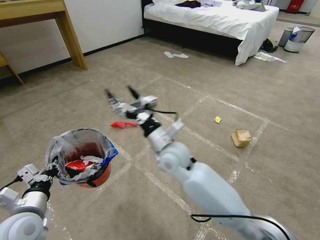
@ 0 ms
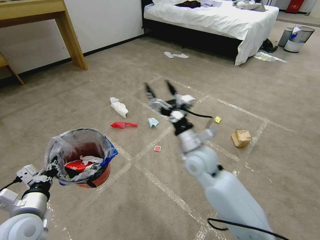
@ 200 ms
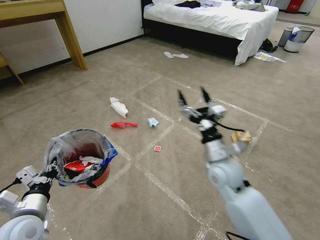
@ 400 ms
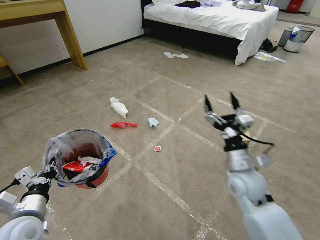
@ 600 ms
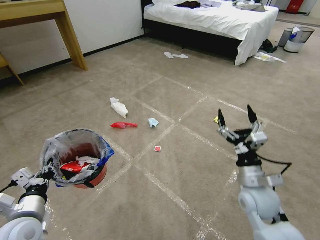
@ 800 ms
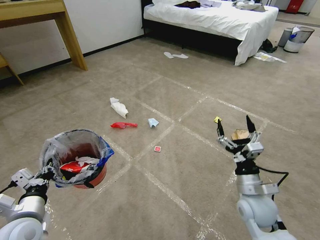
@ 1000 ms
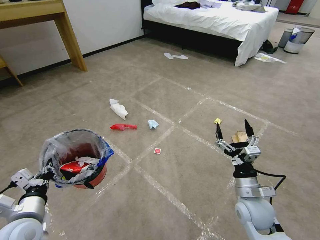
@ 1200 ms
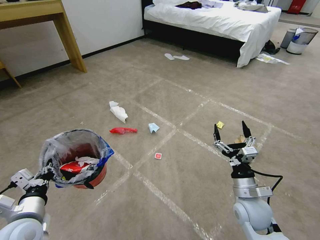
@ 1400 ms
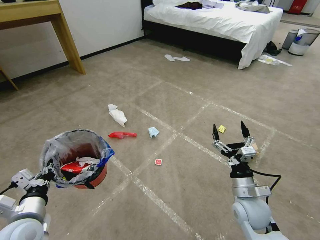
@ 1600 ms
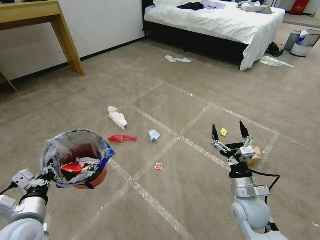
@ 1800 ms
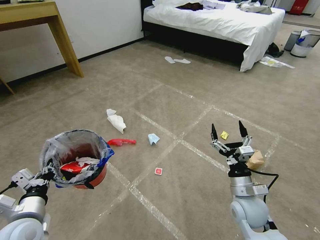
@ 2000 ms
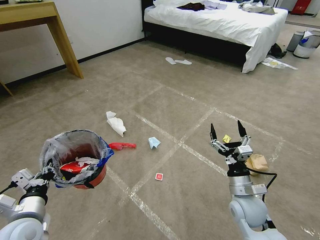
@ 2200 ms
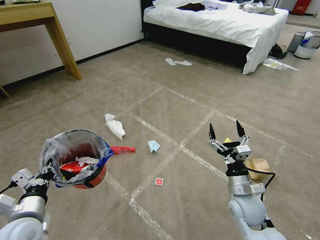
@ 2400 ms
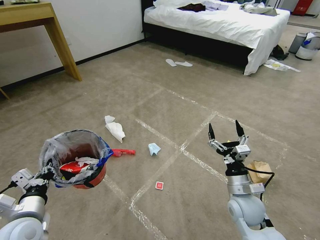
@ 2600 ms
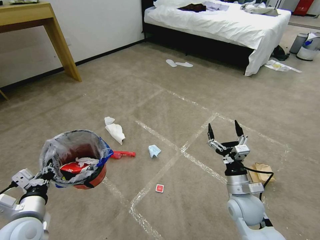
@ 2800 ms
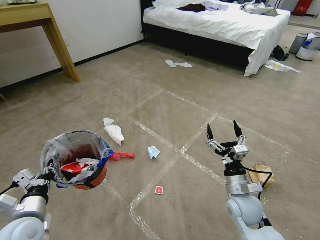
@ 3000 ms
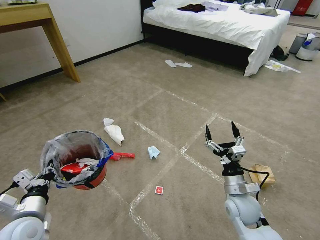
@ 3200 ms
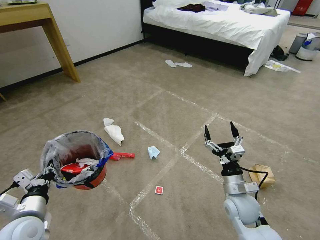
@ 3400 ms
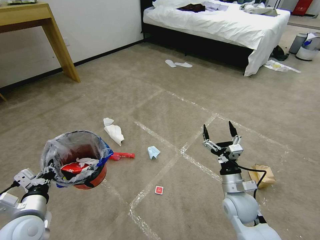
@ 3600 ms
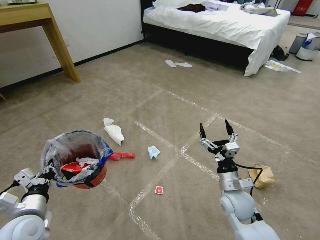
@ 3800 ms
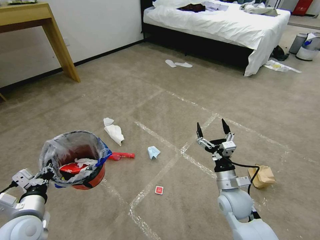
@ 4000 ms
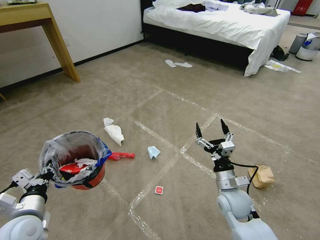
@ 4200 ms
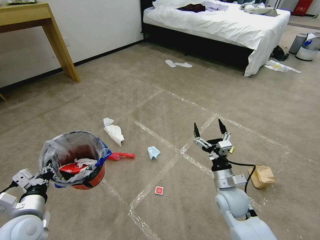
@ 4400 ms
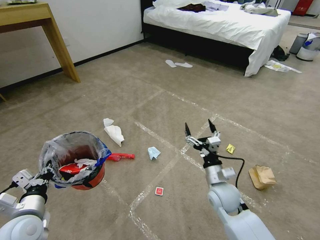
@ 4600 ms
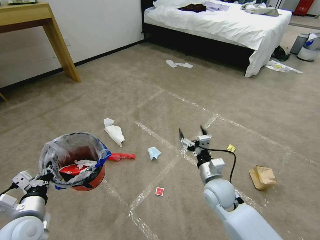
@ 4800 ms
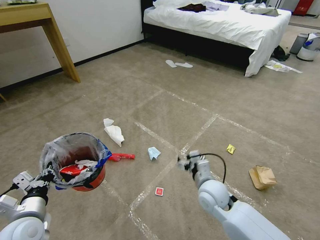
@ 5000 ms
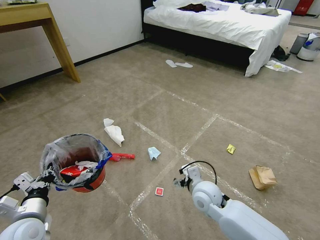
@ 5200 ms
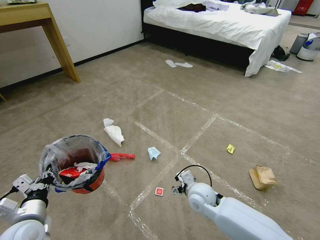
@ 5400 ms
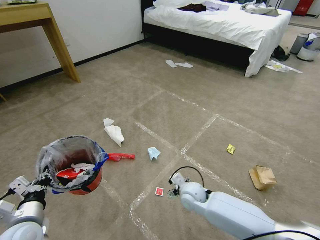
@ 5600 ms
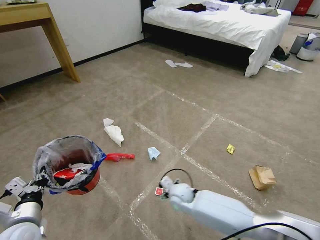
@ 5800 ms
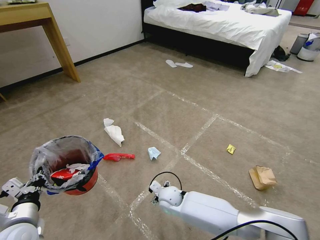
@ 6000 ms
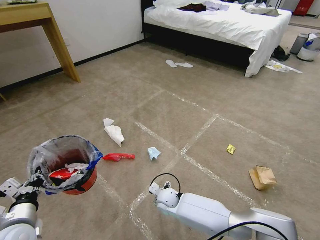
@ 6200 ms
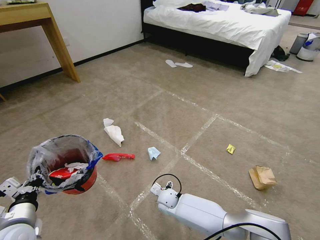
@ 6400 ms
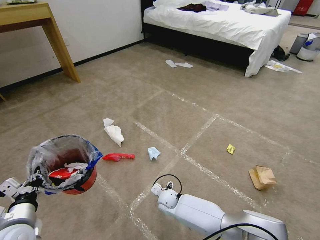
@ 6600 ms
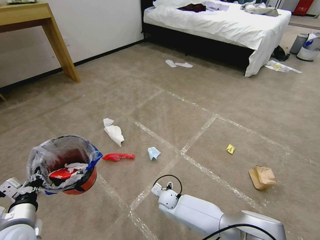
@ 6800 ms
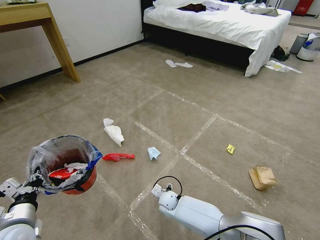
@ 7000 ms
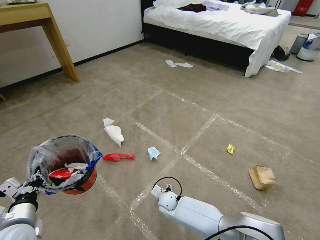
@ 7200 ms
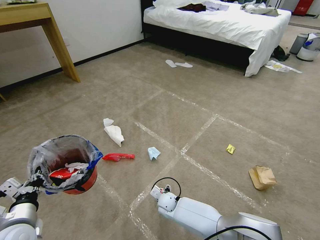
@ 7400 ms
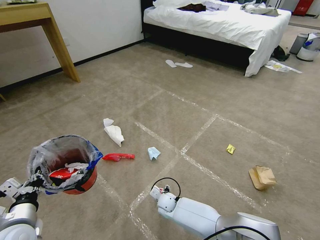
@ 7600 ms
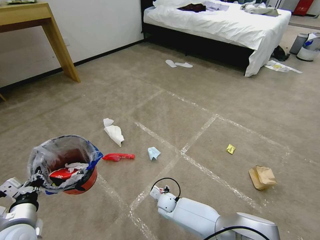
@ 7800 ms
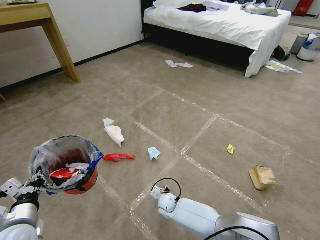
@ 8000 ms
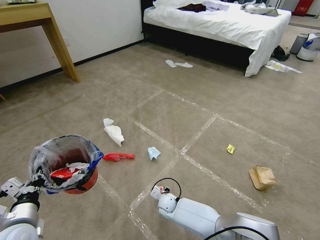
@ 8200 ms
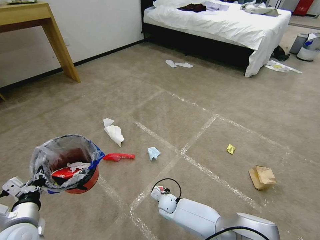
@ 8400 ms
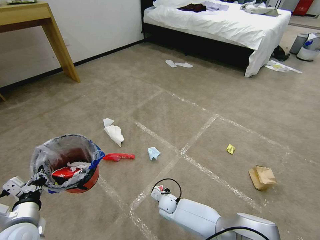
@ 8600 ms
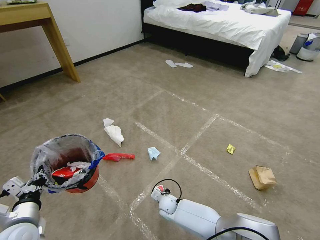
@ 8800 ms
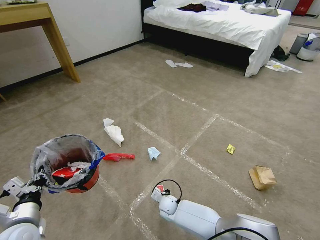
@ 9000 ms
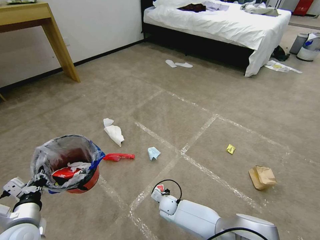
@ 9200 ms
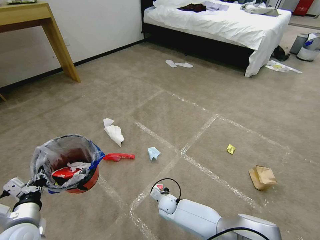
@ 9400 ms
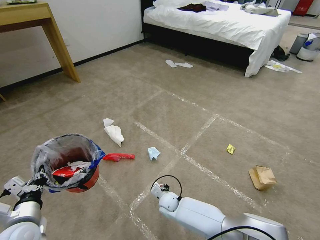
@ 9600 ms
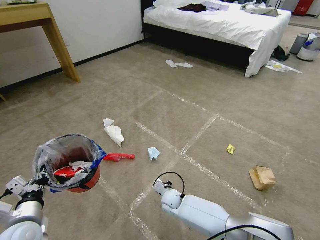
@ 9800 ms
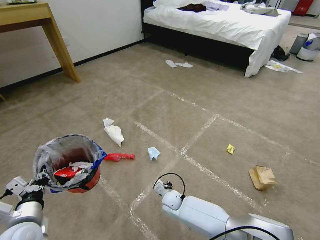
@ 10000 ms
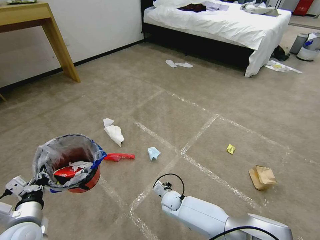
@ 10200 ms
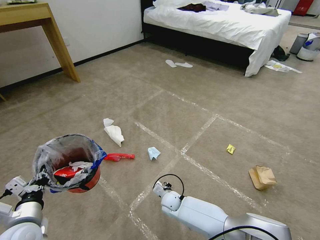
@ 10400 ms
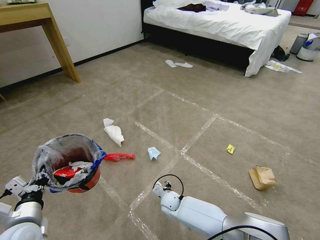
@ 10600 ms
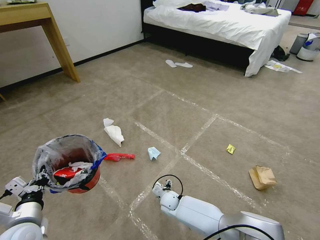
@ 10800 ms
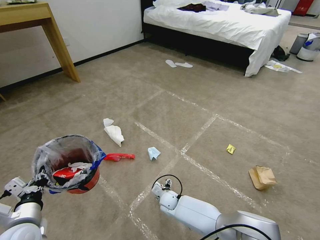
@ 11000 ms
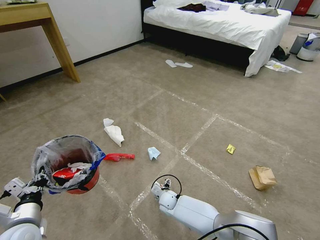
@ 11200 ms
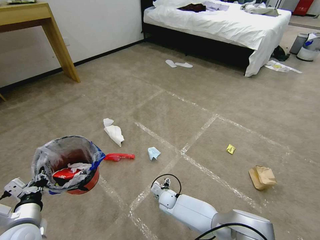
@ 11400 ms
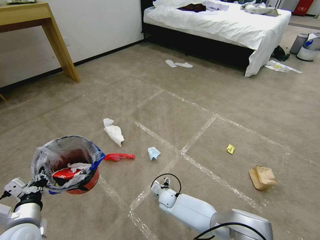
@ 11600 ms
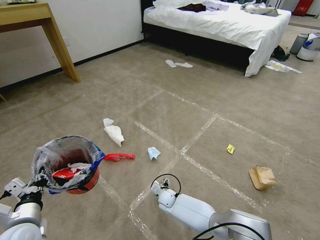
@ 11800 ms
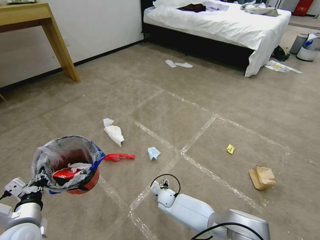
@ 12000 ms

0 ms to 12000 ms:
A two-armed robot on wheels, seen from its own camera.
Task of the whole recording: Pick up the trash bin and place the garbage on the floor into it.
0 ms to 1600 ms: The right gripper heads to the right, backward and downward, covering roughly 30 cm.
3000 ms to 4400 ms: The grippers stay close to where they were, moving slightly.
4400 ms to 6000 ms: The right gripper moves to the left and downward, roughly 20 cm.
6000 ms to 7600 ms: The right gripper heads downward, covering some 10 cm.
7600 ms to 9000 ms: The right gripper closes its fingers.
9000 ms to 10400 ms: The right gripper opens up.
10400 ms to 12000 ms: The right gripper opens up.

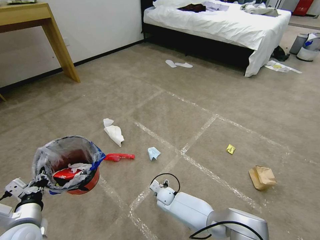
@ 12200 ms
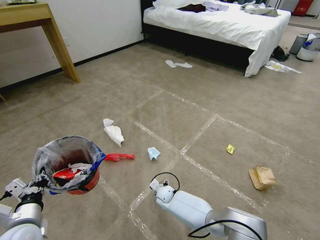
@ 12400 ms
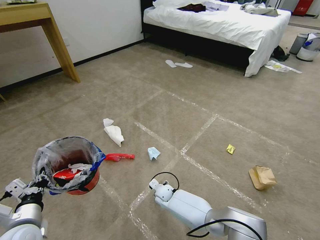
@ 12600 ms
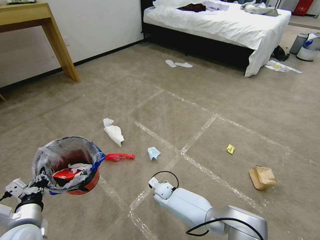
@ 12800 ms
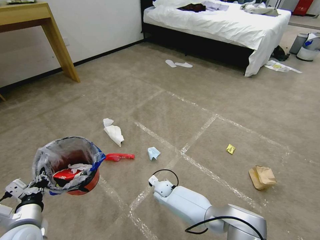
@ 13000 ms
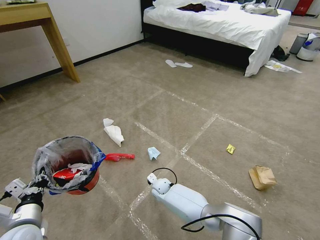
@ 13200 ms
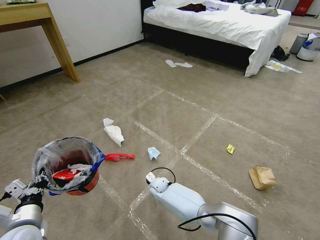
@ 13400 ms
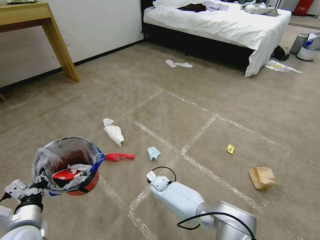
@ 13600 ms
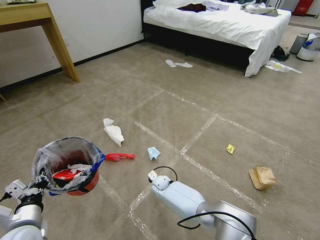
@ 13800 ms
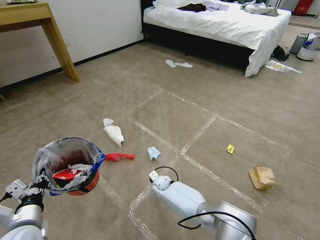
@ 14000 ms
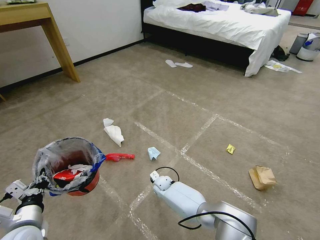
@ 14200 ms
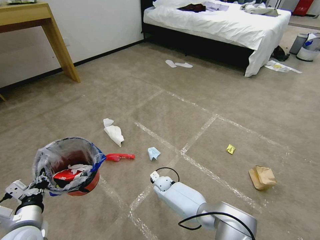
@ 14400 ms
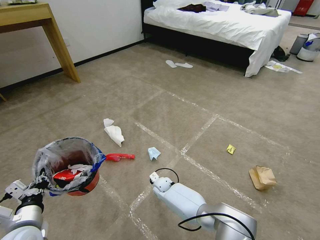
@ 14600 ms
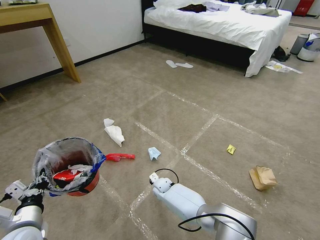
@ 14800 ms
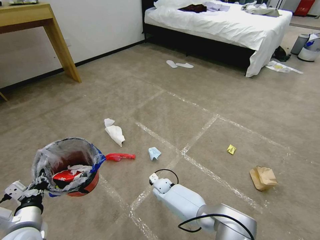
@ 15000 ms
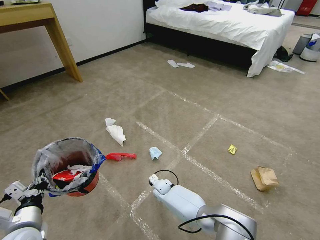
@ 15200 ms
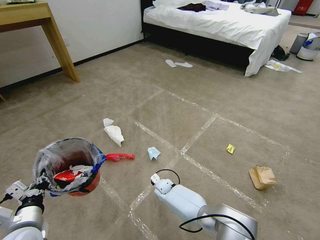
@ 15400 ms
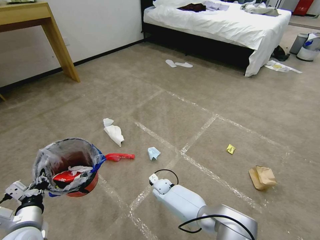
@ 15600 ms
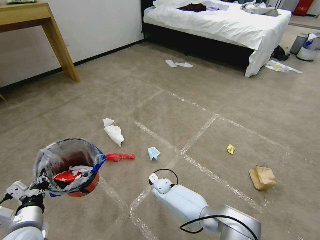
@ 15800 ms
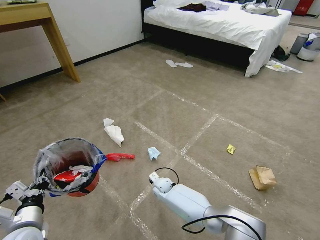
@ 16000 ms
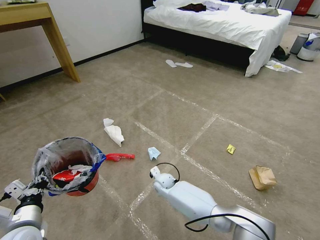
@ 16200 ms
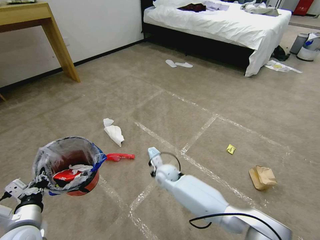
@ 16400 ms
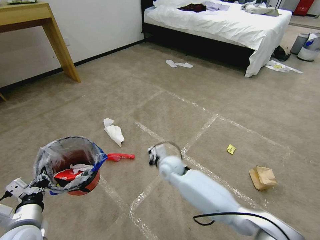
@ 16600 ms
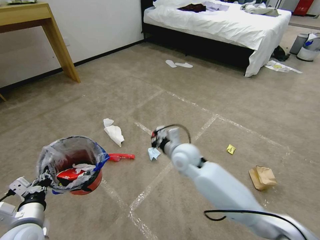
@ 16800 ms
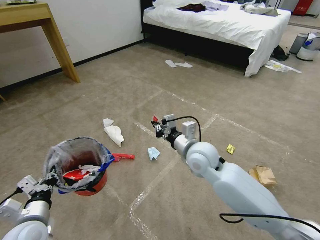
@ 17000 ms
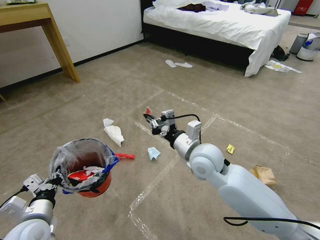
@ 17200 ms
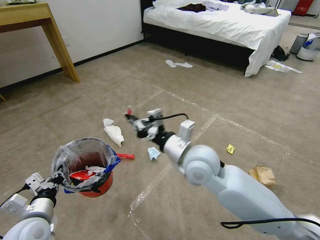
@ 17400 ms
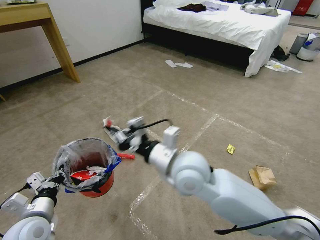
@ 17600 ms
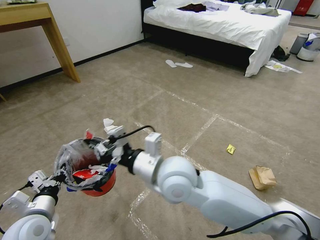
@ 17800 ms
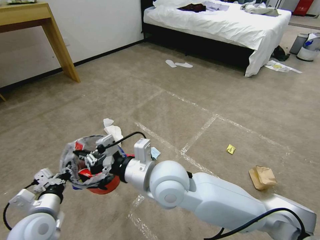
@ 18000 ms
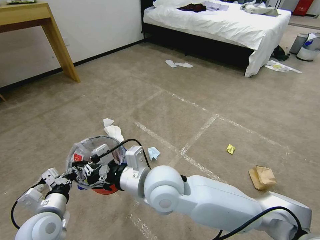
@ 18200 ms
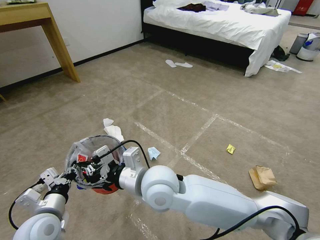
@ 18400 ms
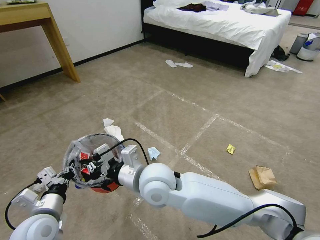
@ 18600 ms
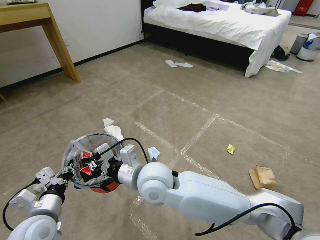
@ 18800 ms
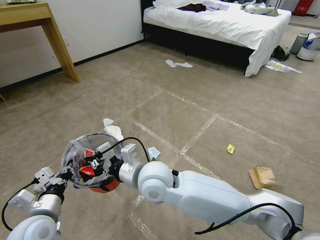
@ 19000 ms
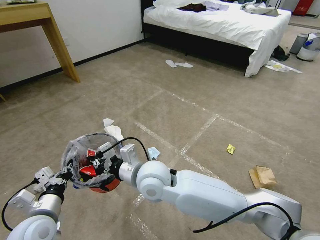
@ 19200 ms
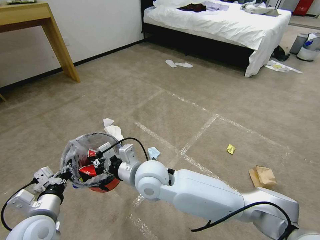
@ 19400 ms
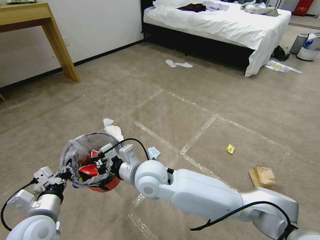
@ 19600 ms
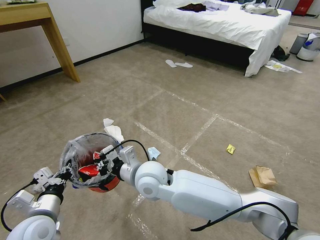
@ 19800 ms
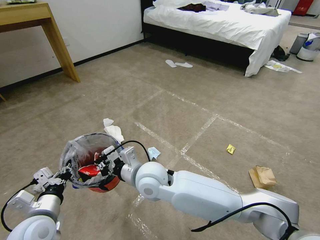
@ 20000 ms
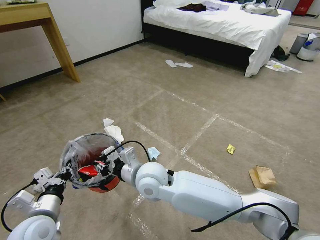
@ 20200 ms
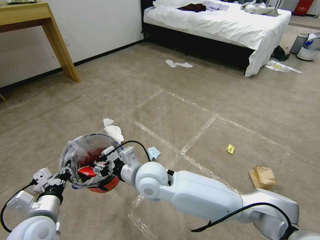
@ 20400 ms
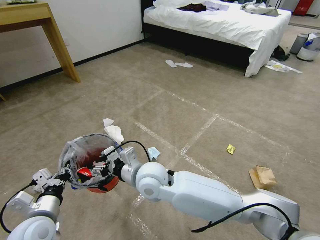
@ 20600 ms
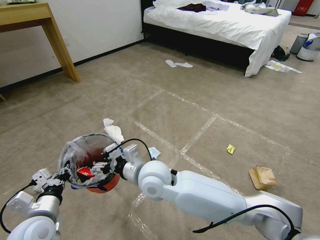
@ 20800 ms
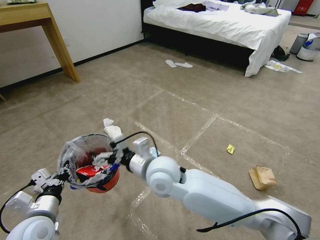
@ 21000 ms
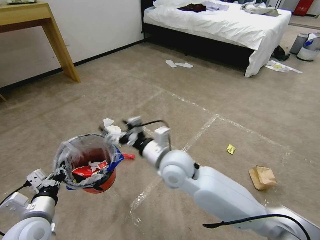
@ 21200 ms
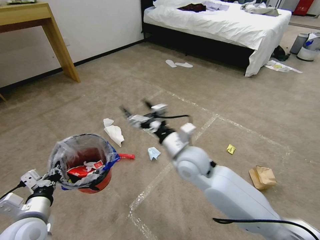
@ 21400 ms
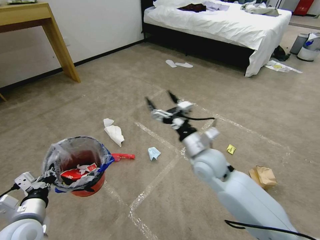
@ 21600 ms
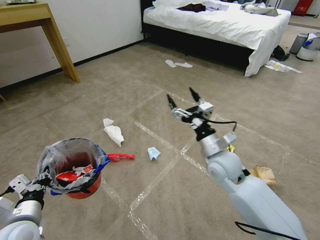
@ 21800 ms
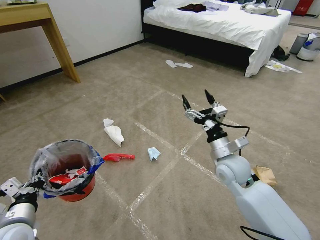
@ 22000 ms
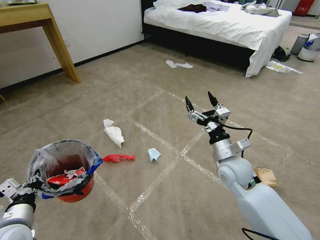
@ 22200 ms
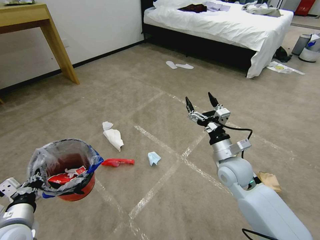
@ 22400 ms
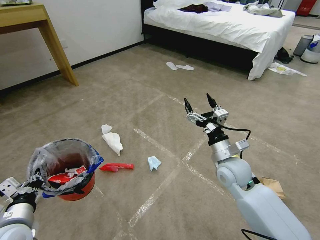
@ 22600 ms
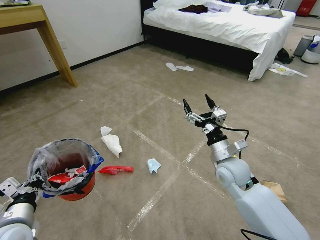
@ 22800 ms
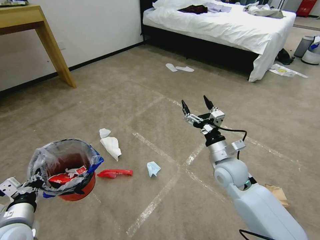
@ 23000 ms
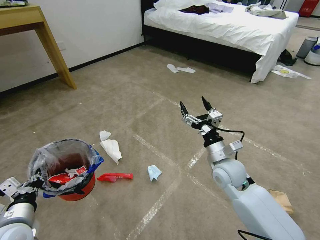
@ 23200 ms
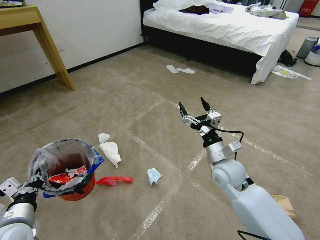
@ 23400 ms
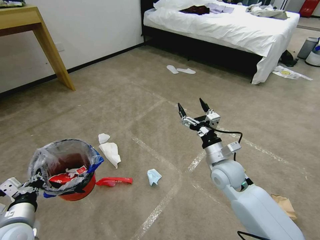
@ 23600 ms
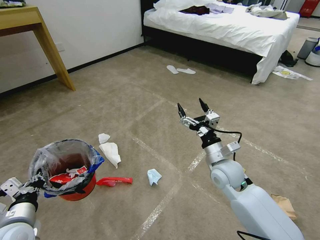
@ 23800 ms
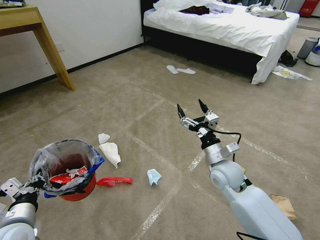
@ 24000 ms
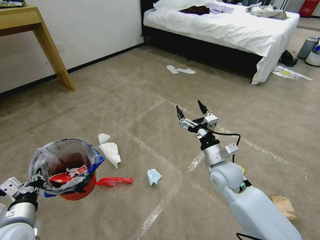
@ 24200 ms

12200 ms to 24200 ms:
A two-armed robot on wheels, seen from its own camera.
Task of the whole recording: Pick up the trash bin and place the garbage on the floor into it.
12200 ms to 13800 ms: The right gripper shifts by approximately 5 cm.
13800 ms to 15200 ms: The right gripper closes its fingers.
15200 ms to 16600 ms: The right gripper goes approximately 20 cm upward.
16600 ms to 18200 ms: The right gripper heads upward and backward, covering approximately 25 cm.
18200 ms to 19800 ms: The right gripper moves downward and forward, roughly 10 cm.
19800 ms to 21200 ms: The right gripper travels to the right by roughly 5 cm, and opens.
21200 ms to 22600 ms: The right gripper moves to the right, some 20 cm.
